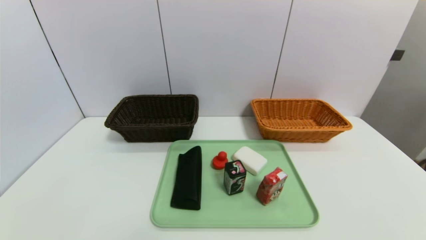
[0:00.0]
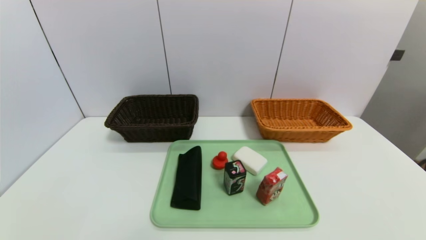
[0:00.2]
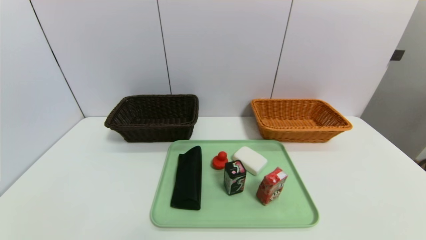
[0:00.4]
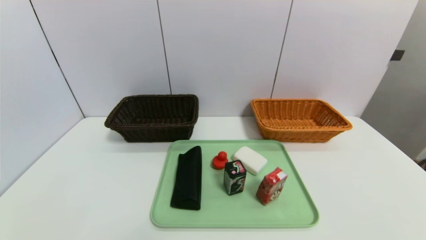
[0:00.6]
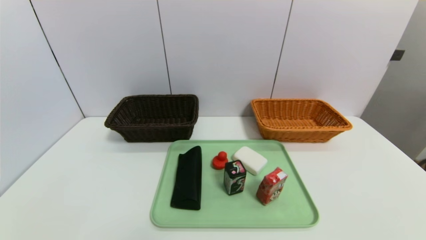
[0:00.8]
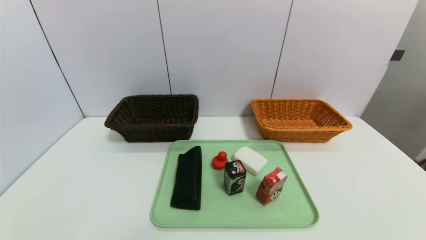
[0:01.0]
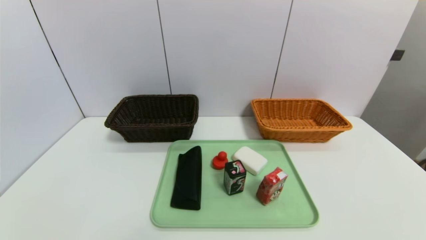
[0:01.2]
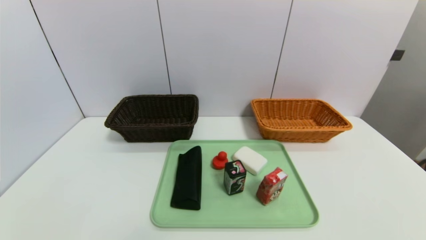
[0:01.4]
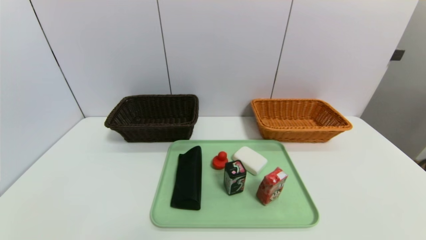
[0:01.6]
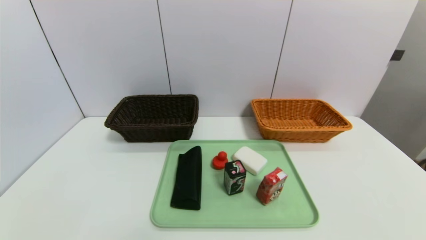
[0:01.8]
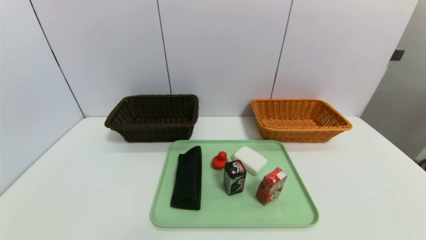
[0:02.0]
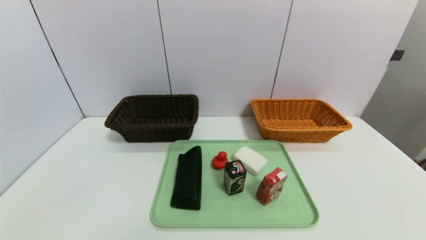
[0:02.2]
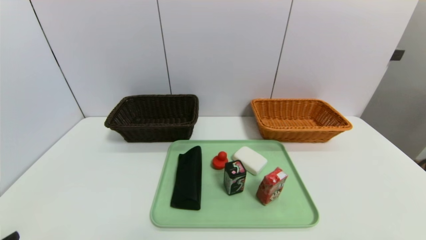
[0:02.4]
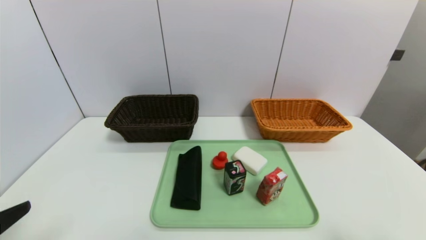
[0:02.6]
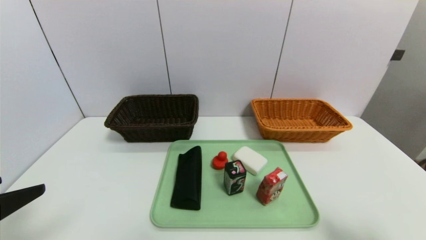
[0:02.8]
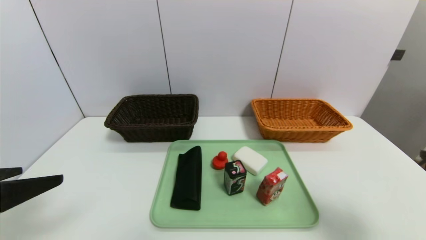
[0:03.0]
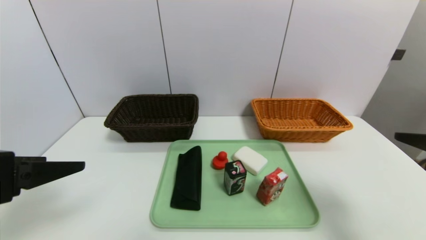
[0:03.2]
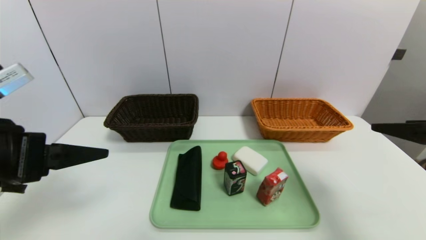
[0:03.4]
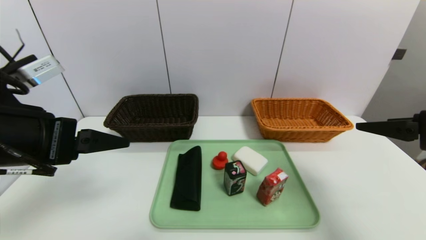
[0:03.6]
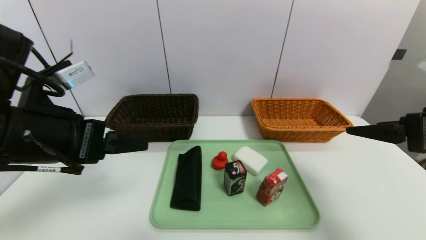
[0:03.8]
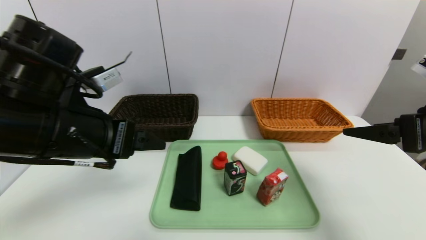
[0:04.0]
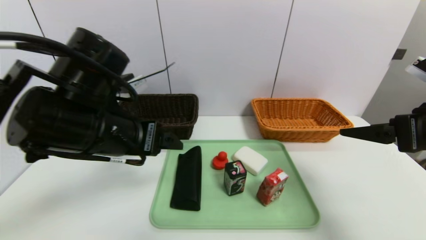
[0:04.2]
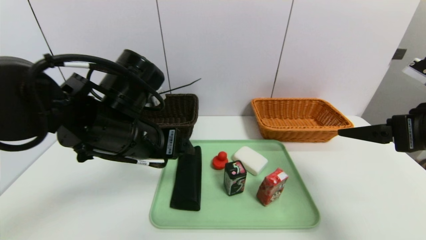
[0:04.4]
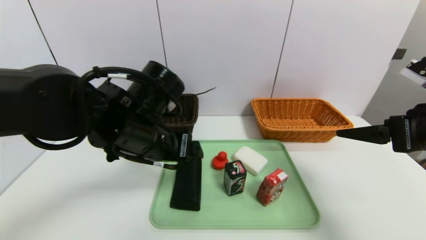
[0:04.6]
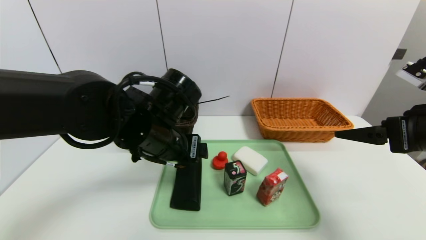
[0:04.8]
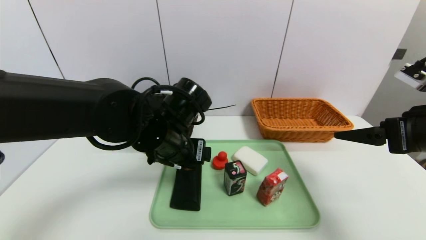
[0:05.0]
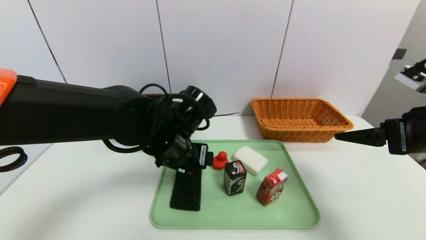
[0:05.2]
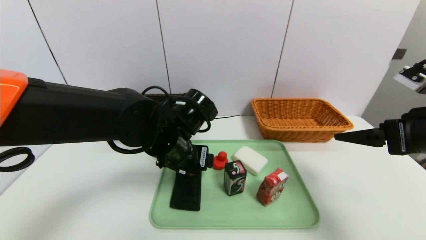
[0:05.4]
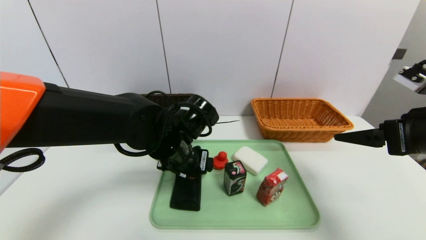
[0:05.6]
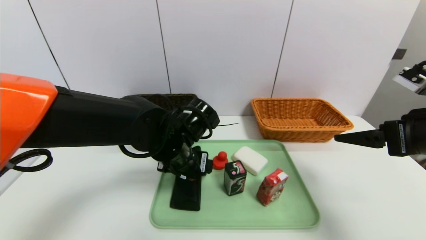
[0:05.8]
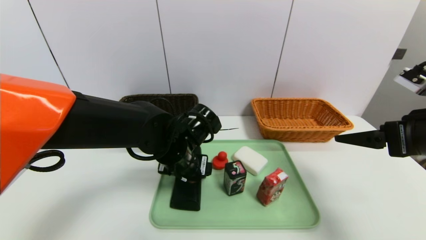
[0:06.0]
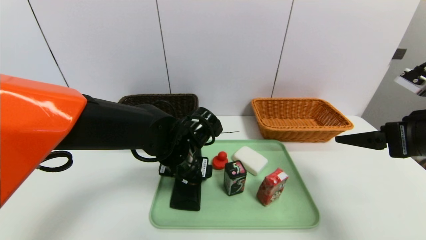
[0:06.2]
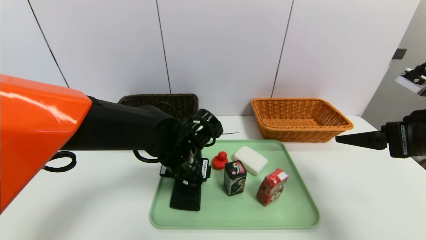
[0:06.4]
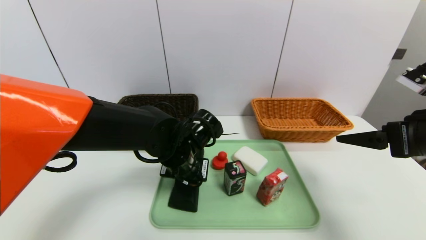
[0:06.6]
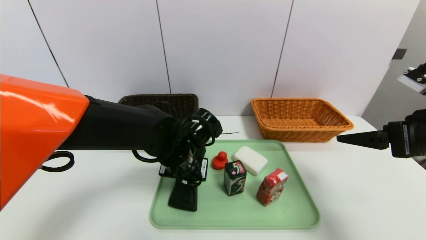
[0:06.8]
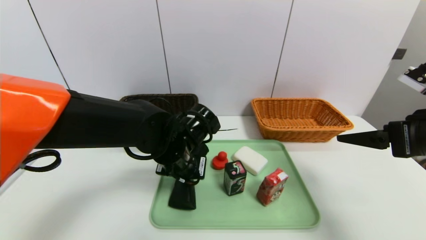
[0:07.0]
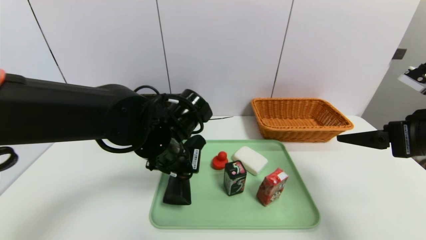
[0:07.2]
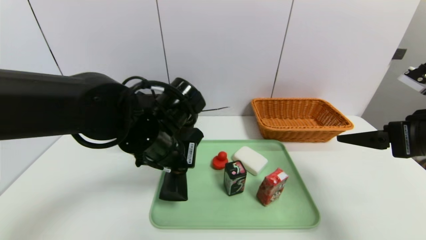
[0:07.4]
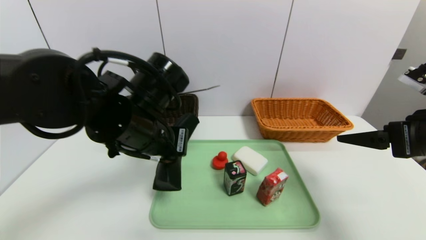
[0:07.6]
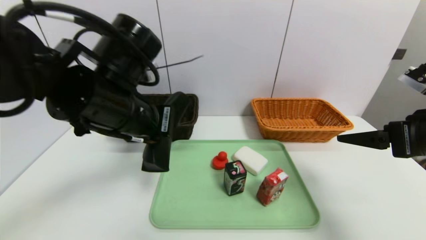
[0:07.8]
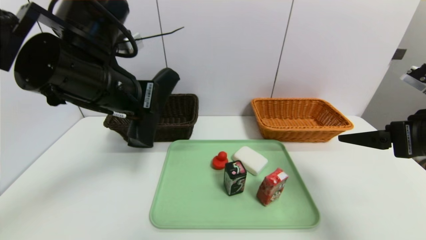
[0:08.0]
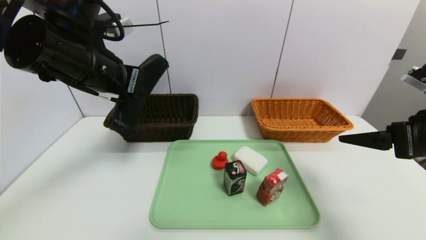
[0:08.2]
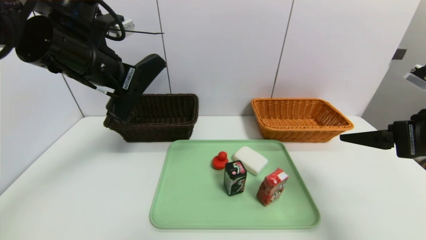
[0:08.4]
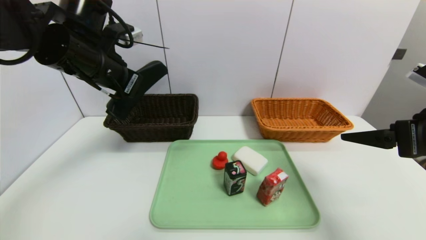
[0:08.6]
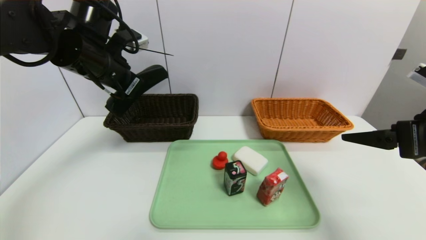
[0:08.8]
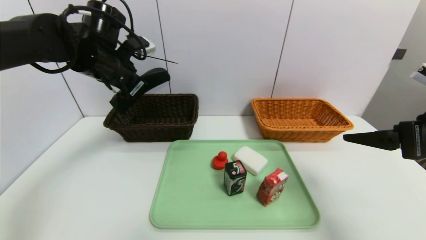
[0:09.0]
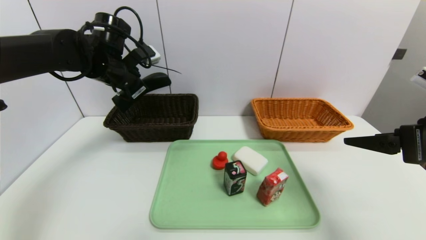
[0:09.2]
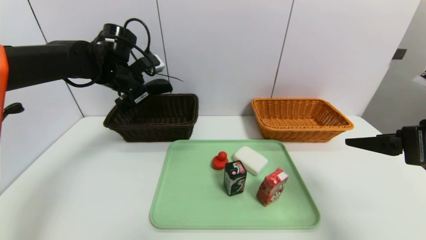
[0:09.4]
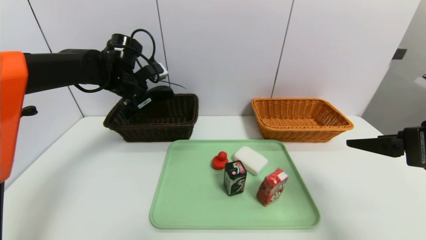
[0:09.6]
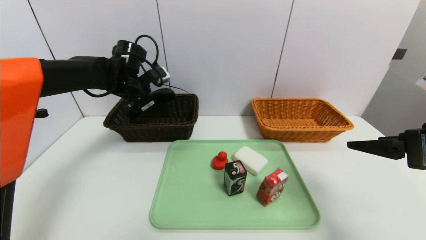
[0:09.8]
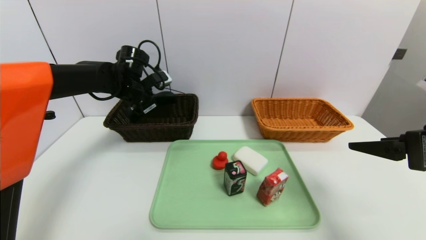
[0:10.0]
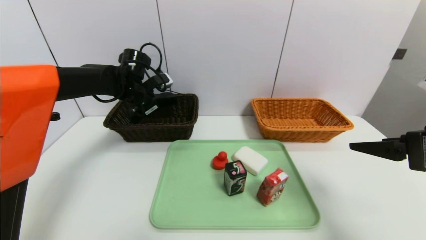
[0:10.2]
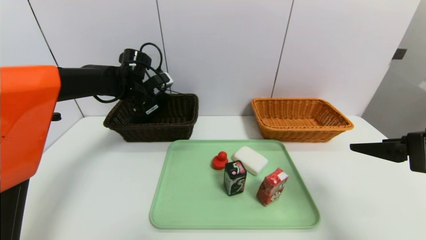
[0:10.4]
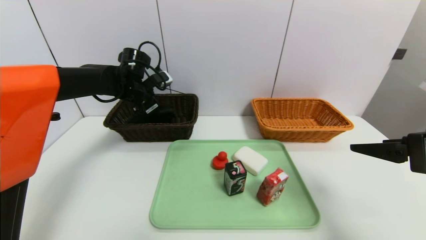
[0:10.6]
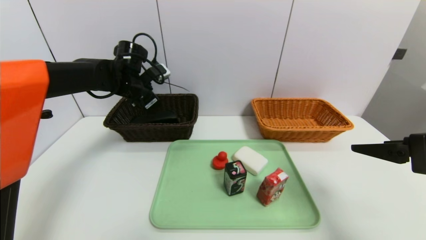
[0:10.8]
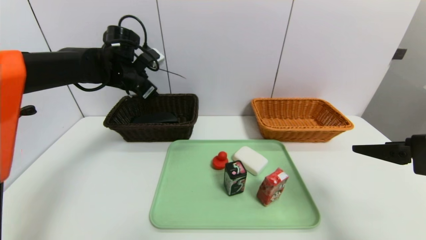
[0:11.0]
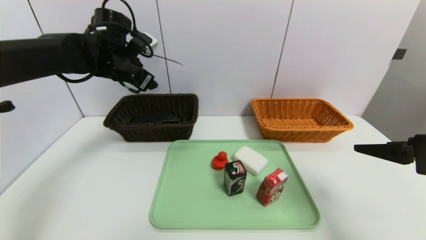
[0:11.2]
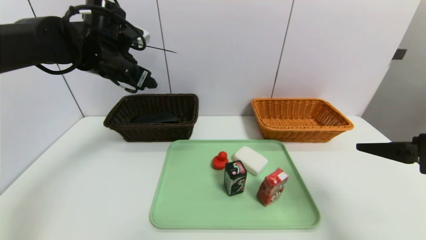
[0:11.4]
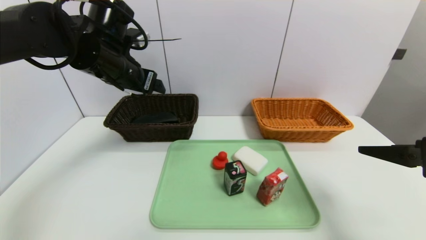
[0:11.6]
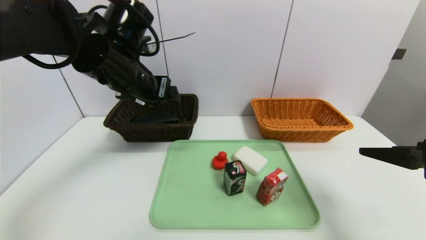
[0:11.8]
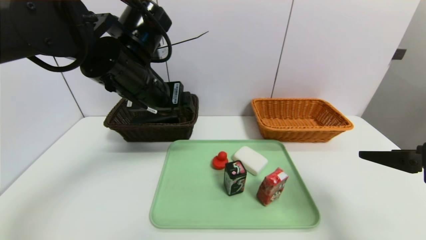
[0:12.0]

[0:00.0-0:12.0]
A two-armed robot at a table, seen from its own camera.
Task of the whole recording: place the food in the right basket with the right gripper, and place the non food items in the left basket with the left gripper.
Step, 0:00.0 to 0:10.8: Grasp the glasses case and put it in the left basket.
0:00.0 to 0:01.6: Neither gripper changes place.
0:01.6 to 0:03.0: Both grippers travel together upward and forward, about 20 cm.
0:03.0 to 0:04.4: The right gripper moves forward, about 10 cm. The left gripper travels to the right and forward by some 20 cm.
0:04.4 to 0:06.0: The left gripper travels downward, to the right and forward by roughly 15 cm.
0:06.0 to 0:07.6: The left gripper moves upward and to the left, about 10 cm, and closes.
0:07.6 to 0:09.0: The left gripper travels forward and to the left by roughly 15 cm.
0:09.0 to 0:10.4: The left gripper moves downward and forward, about 10 cm, and opens its fingers.
0:10.4 to 0:12.0: The left gripper goes approximately 20 cm backward, upward and to the right, and opens its fingers.

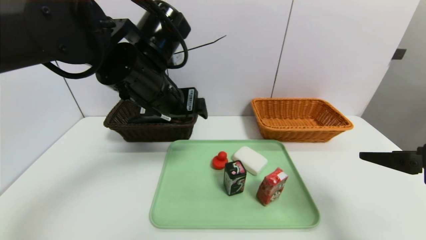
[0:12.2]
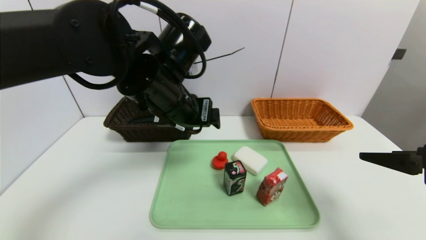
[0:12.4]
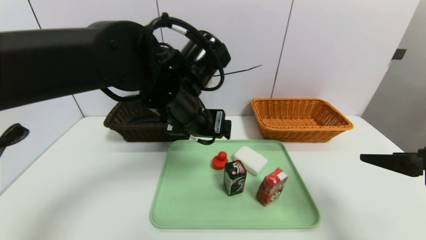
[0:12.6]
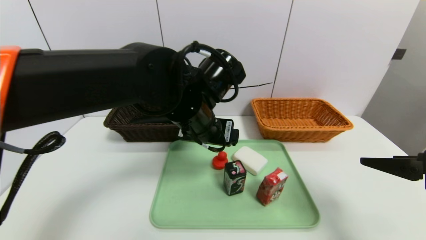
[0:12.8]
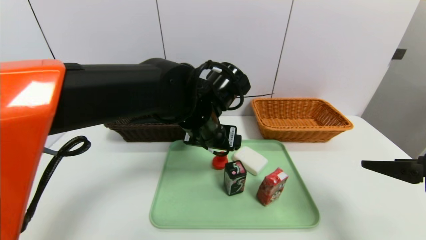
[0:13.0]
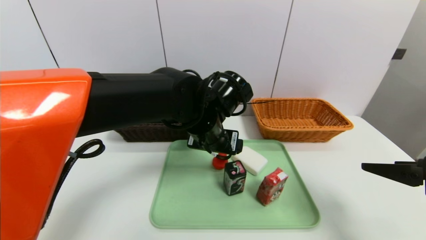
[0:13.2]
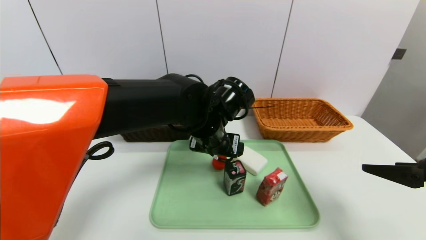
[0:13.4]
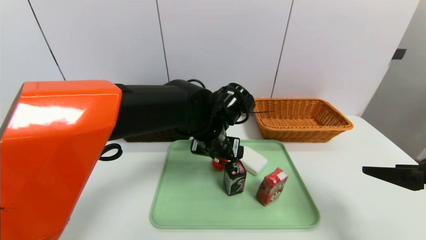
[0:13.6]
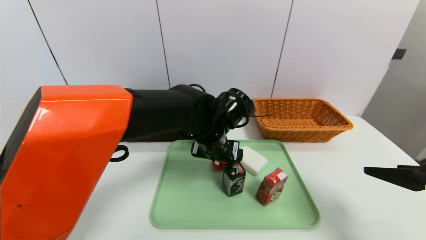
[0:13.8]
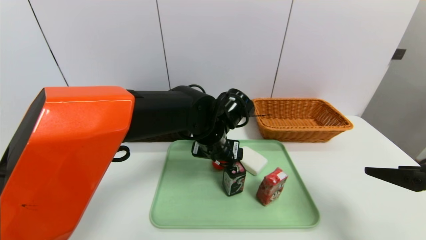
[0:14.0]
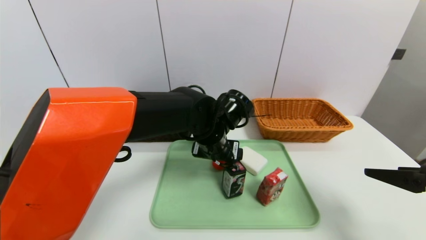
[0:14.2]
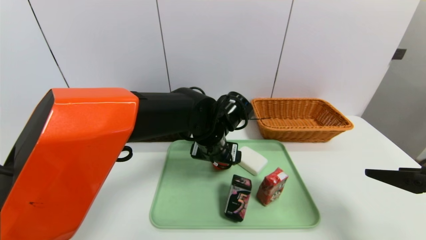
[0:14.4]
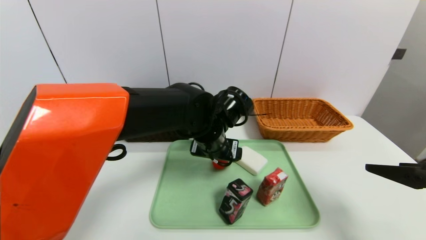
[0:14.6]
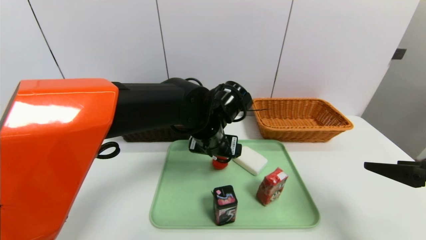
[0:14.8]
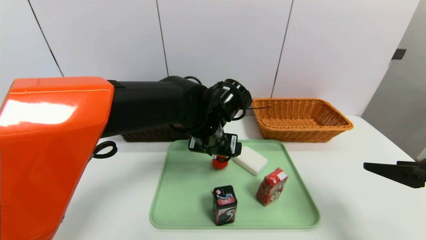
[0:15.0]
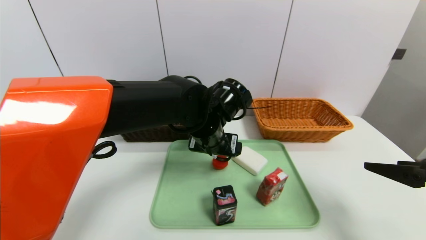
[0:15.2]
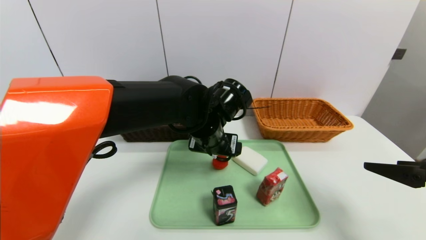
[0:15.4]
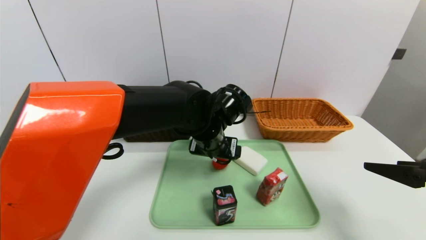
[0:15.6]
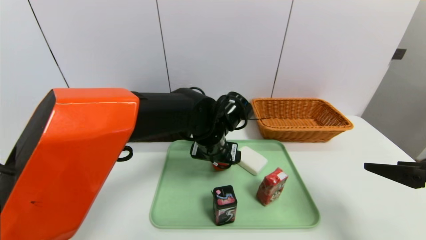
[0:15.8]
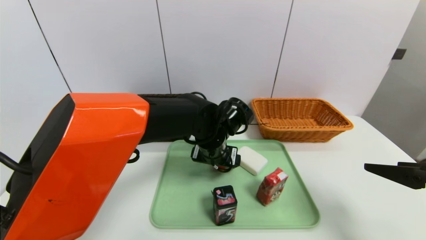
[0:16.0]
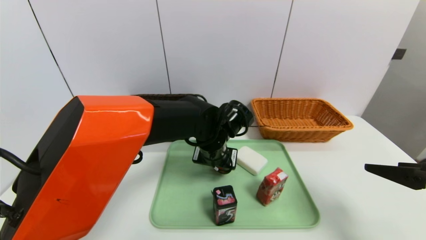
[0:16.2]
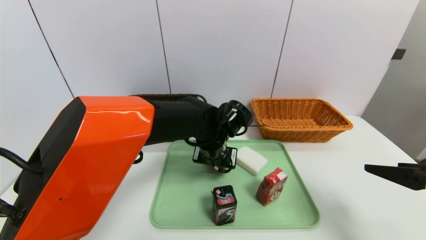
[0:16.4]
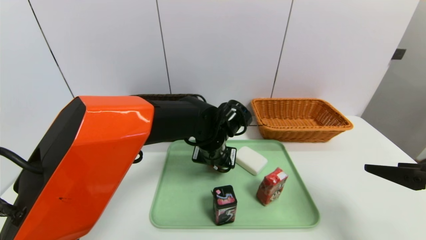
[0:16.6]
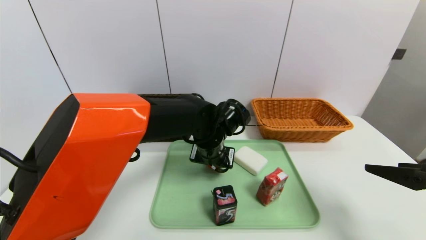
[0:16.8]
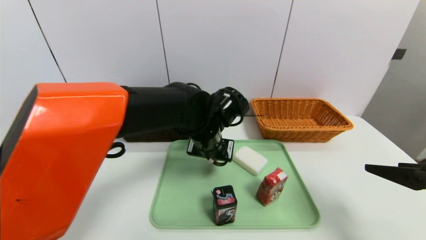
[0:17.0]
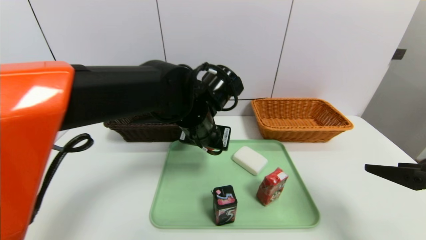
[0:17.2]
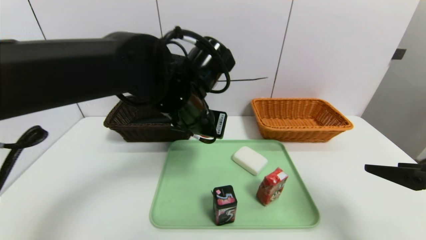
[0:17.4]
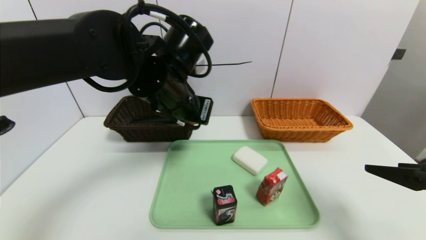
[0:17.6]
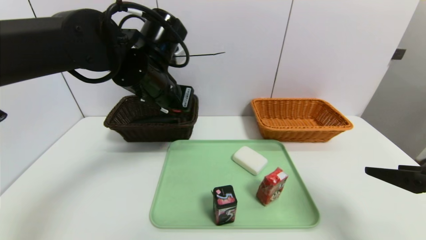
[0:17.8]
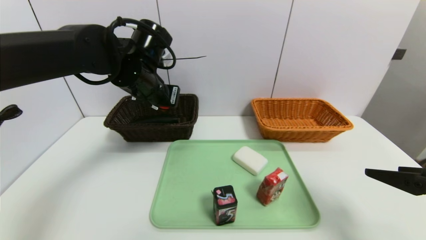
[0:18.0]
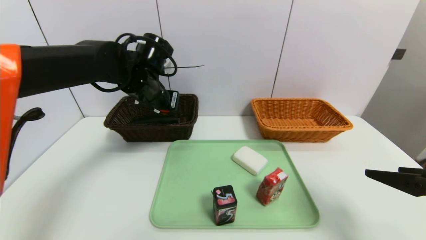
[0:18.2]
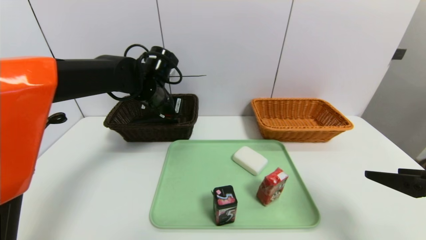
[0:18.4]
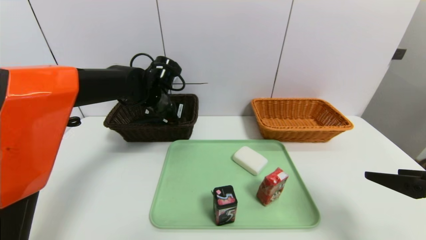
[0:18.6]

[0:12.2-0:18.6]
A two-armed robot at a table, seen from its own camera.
Task of the whole recording: place the food in the right basket with the right gripper, and place the non food items in the left basket with the left gripper.
0:12.2 to 0:13.8: The left gripper goes about 15 cm downward and to the right.
0:13.8 to 0:15.4: There are only small adjustments of the grippers.
0:15.4 to 0:17.0: The left gripper closes up.
0:17.0 to 0:18.6: The left gripper moves to the left and forward, roughly 15 cm.
